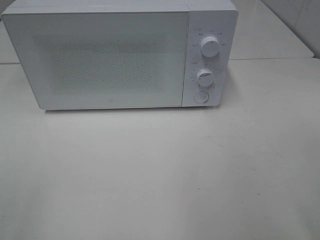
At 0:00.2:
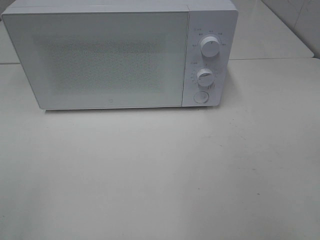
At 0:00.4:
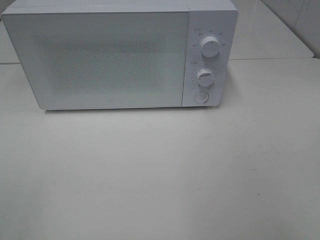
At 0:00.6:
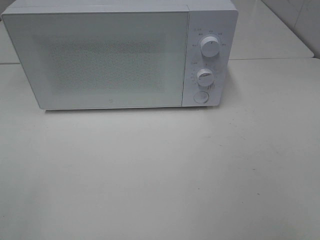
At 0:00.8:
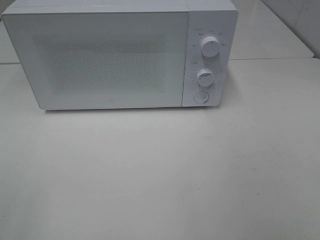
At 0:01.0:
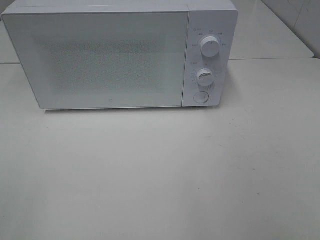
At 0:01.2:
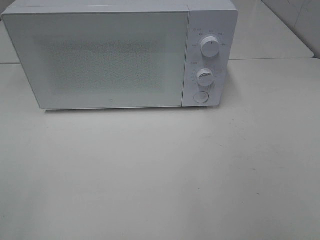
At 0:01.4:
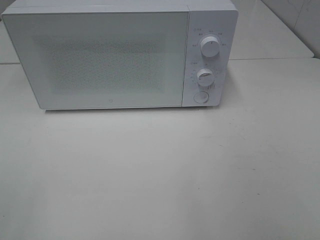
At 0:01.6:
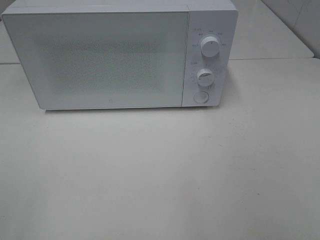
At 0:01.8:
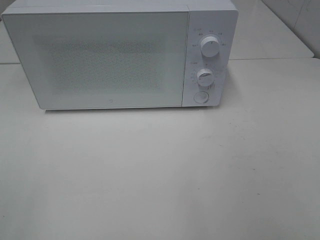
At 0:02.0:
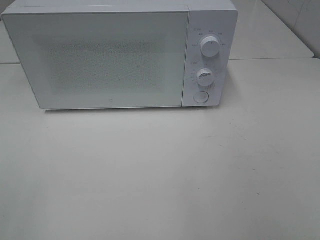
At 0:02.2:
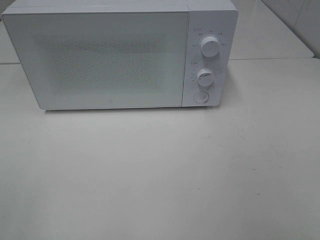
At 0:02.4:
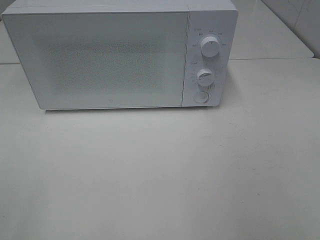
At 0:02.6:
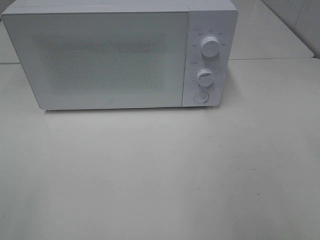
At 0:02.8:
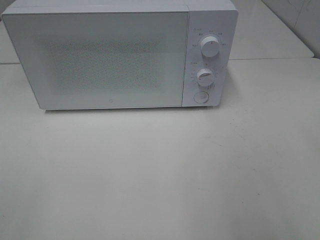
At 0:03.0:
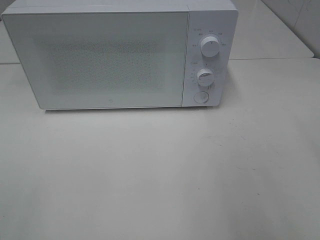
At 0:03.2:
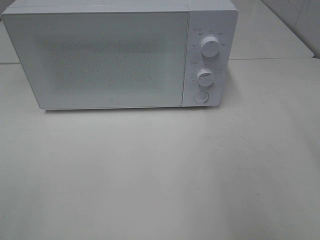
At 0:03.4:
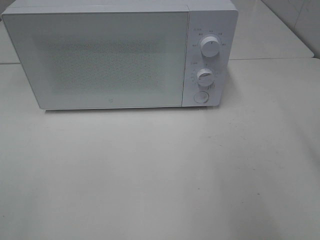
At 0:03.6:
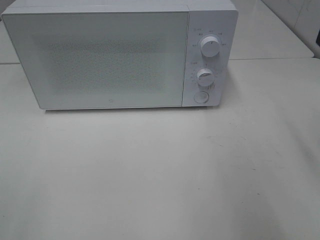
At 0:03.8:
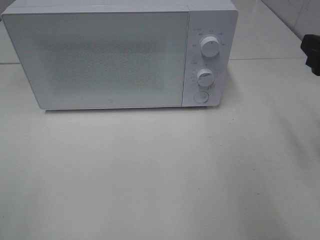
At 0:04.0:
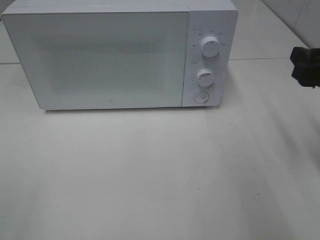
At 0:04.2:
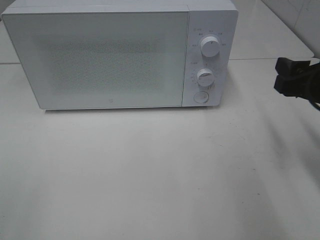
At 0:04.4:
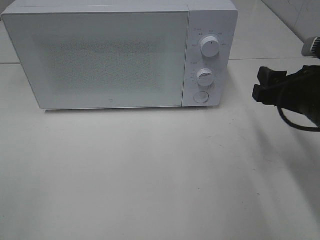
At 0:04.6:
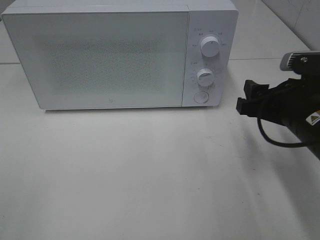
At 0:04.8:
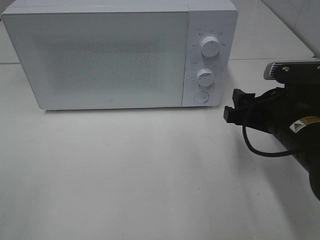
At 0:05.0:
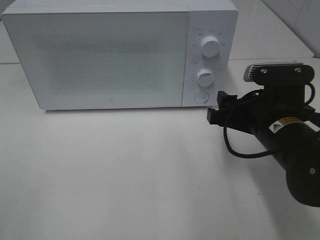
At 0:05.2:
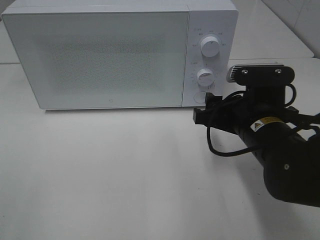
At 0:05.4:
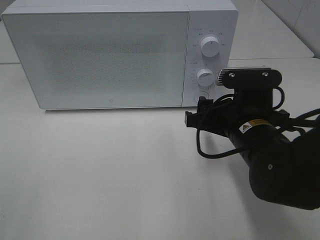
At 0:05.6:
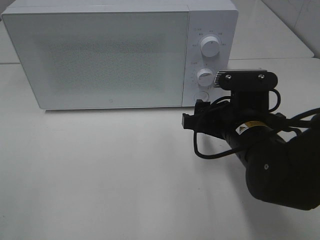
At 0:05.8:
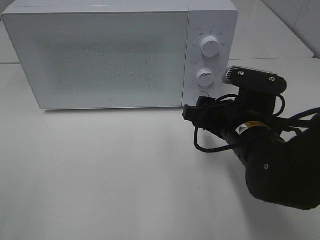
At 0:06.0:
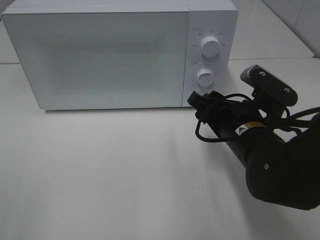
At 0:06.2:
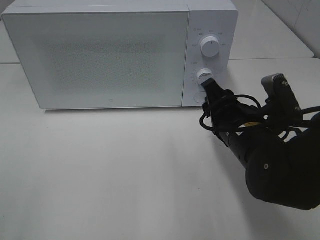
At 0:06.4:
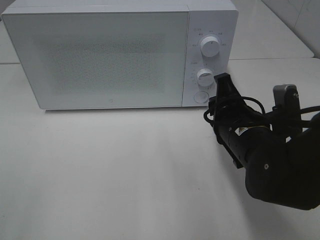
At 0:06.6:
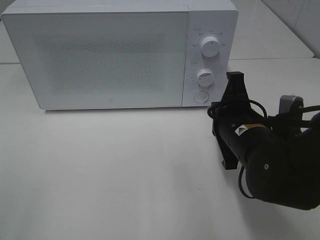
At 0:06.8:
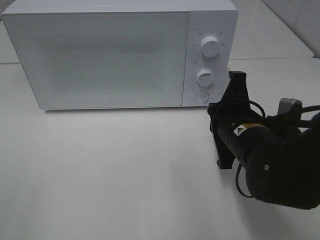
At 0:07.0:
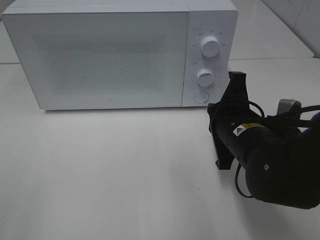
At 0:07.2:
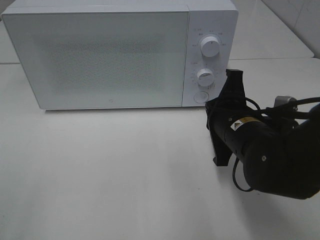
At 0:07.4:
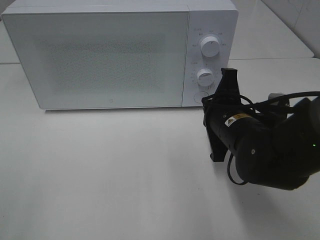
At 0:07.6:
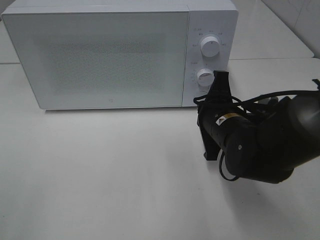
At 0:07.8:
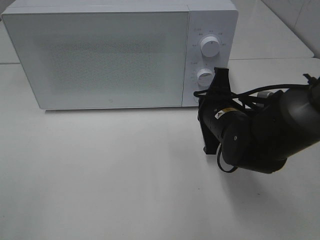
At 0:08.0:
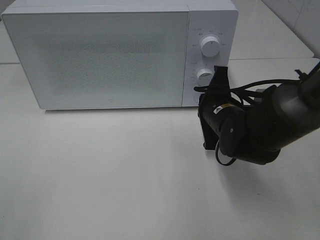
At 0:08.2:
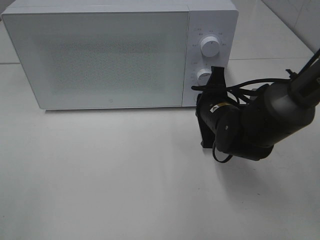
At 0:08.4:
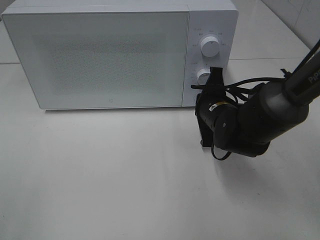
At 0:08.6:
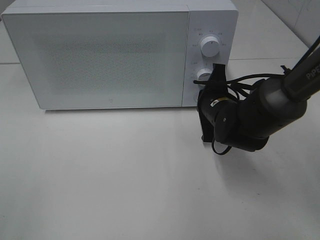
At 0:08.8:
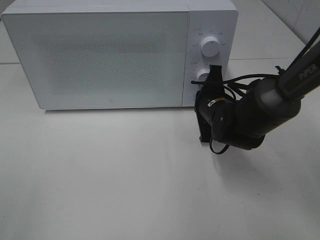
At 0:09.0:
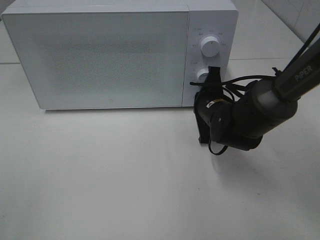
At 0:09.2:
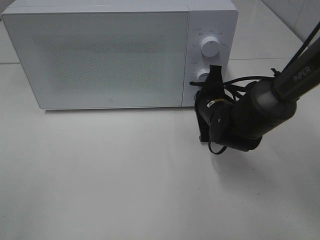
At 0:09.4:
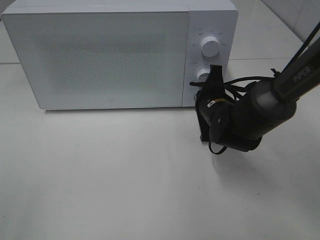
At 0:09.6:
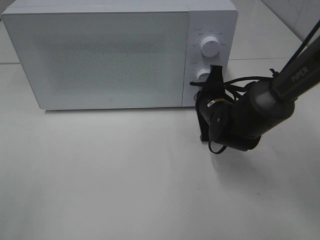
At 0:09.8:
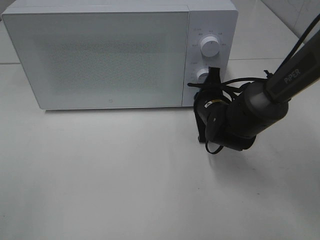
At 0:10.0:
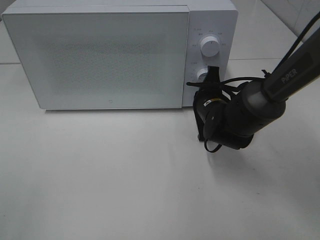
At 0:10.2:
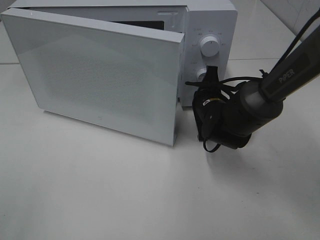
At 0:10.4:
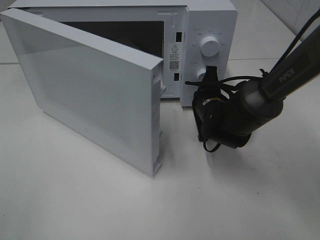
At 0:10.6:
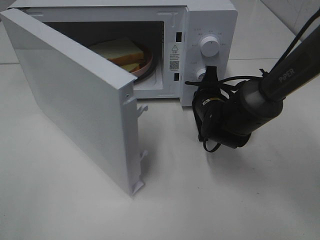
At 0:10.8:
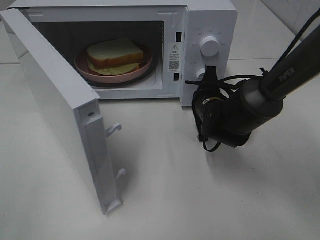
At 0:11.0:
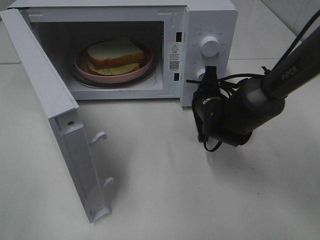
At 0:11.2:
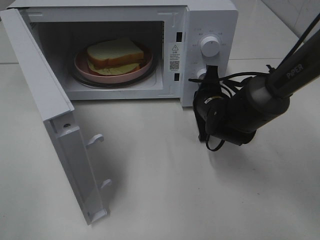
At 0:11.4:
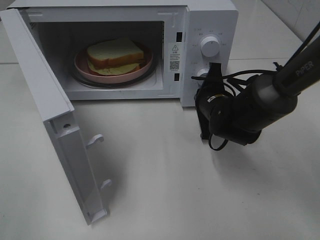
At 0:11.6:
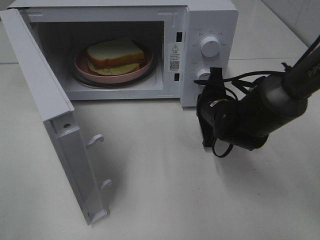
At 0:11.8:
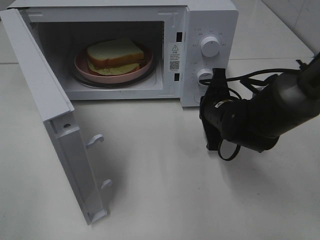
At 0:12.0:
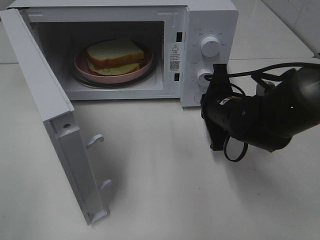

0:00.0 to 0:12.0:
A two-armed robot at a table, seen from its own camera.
Task of the whole recording: Heat Sandwich.
0:03.0 to 0:04.4: The right gripper shifts roughly 15 cm downward and forward.
0:04.4 to 0:06.0: The right gripper travels to the left and downward by roughly 10 cm.
0:06.0 to 0:07.6: The right gripper closes.
0:07.6 to 0:09.0: The right gripper is displaced forward by about 5 cm.
0:10.4 to 0:12.0: The right gripper shifts roughly 5 cm backward.

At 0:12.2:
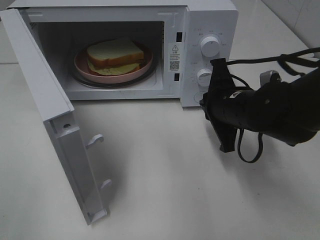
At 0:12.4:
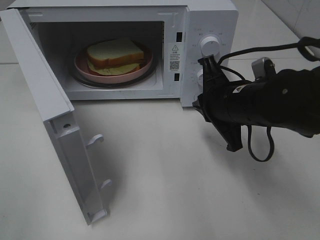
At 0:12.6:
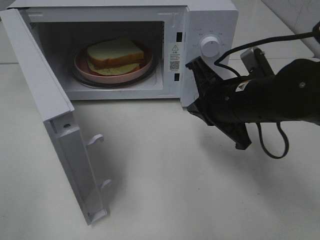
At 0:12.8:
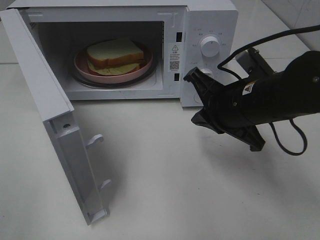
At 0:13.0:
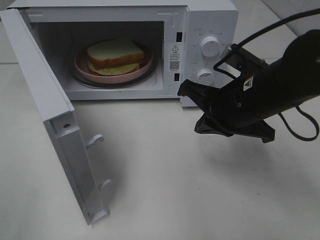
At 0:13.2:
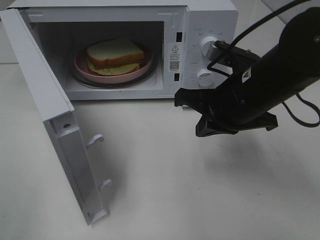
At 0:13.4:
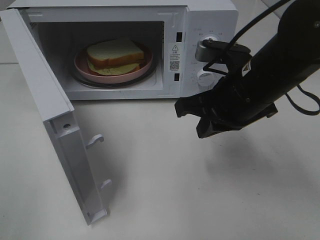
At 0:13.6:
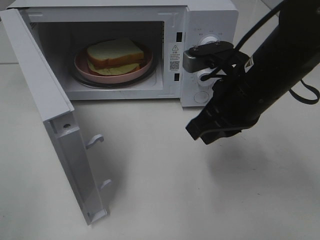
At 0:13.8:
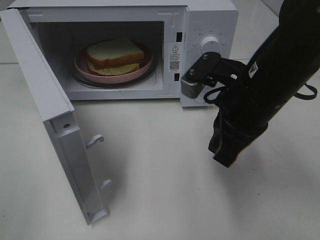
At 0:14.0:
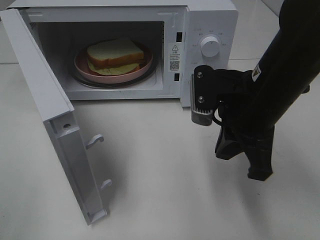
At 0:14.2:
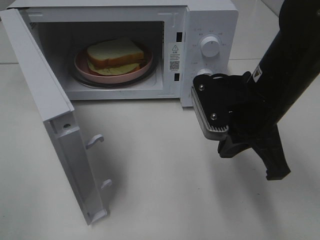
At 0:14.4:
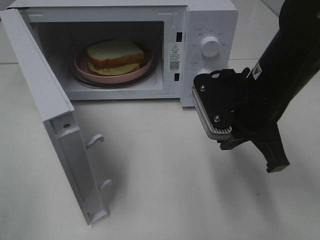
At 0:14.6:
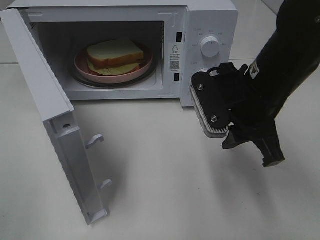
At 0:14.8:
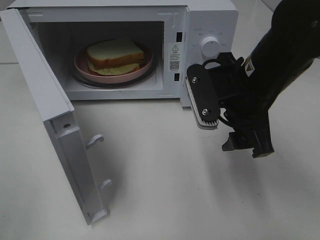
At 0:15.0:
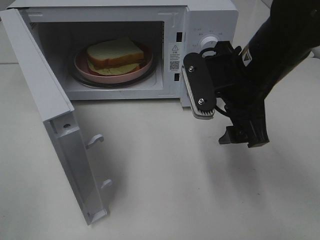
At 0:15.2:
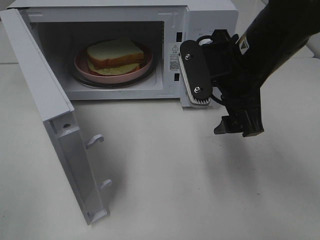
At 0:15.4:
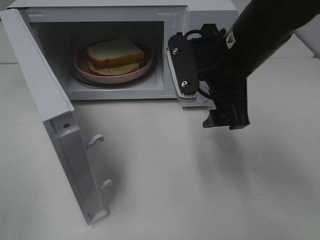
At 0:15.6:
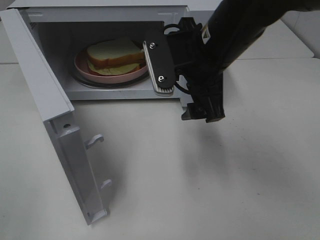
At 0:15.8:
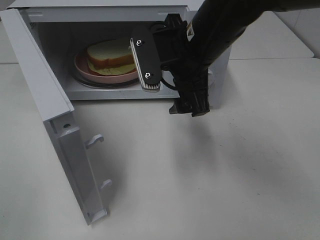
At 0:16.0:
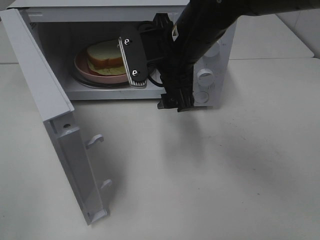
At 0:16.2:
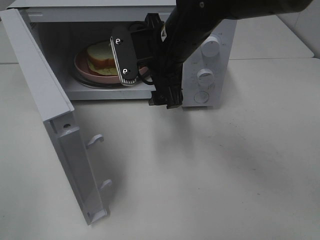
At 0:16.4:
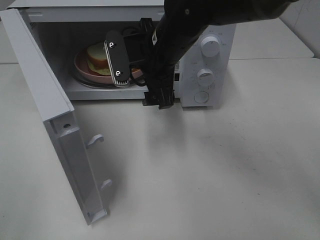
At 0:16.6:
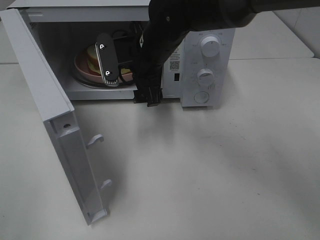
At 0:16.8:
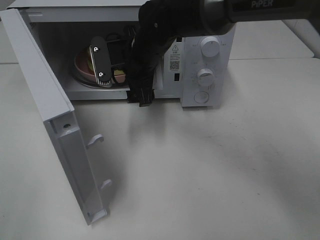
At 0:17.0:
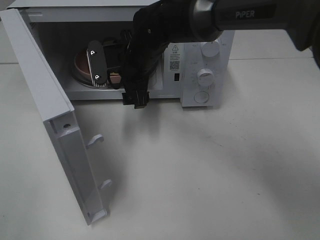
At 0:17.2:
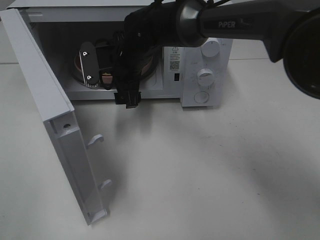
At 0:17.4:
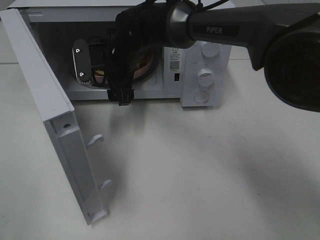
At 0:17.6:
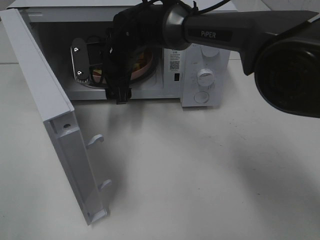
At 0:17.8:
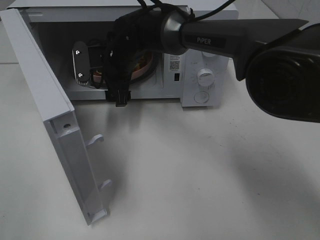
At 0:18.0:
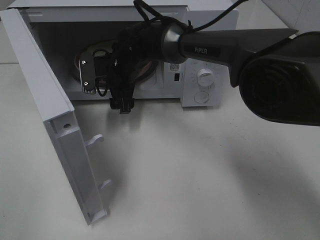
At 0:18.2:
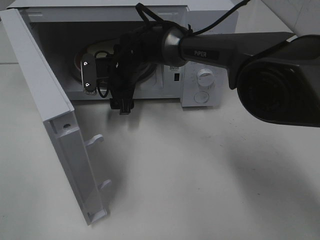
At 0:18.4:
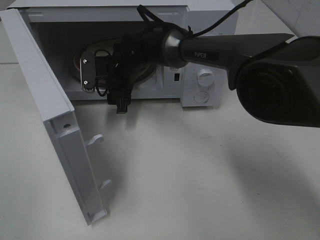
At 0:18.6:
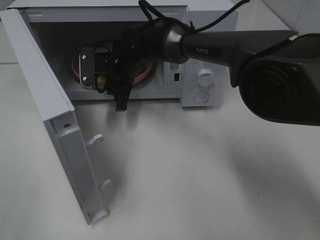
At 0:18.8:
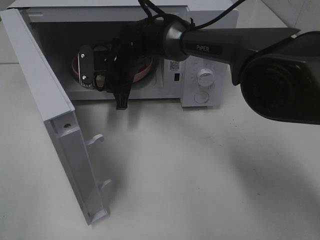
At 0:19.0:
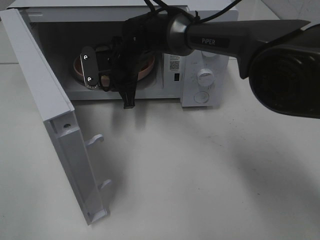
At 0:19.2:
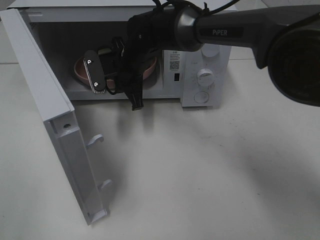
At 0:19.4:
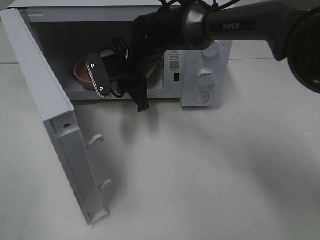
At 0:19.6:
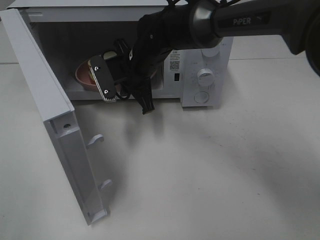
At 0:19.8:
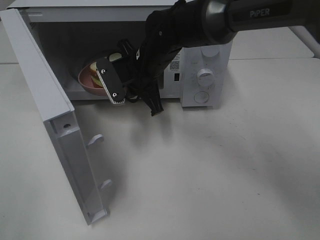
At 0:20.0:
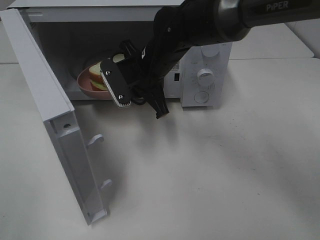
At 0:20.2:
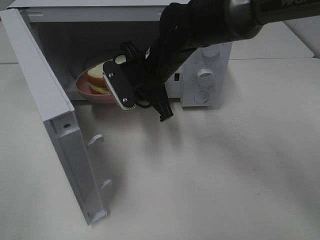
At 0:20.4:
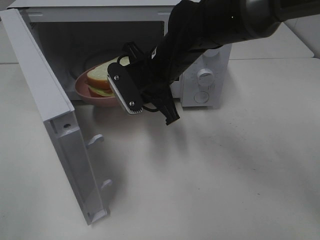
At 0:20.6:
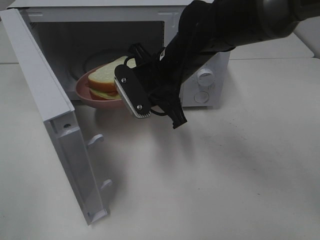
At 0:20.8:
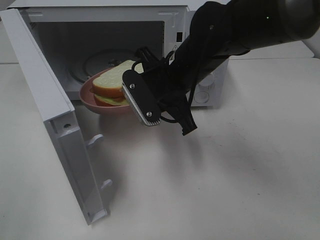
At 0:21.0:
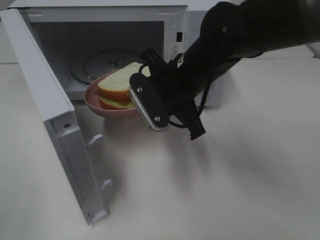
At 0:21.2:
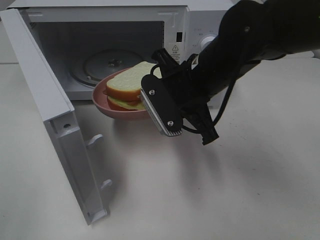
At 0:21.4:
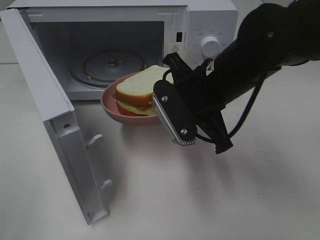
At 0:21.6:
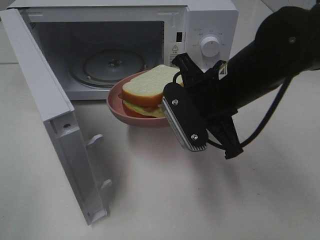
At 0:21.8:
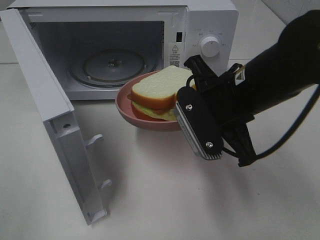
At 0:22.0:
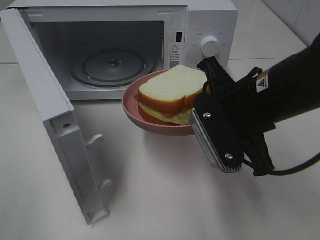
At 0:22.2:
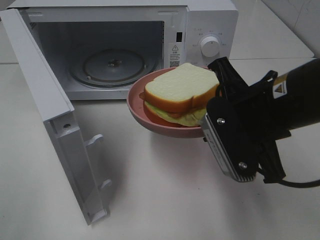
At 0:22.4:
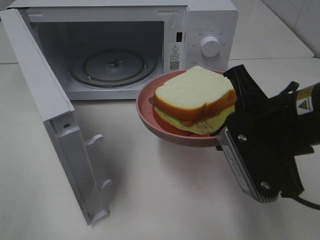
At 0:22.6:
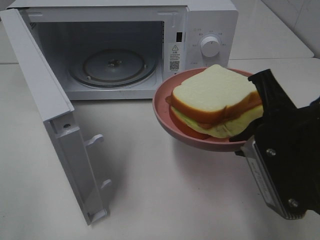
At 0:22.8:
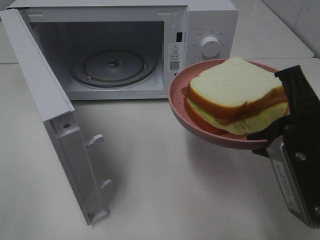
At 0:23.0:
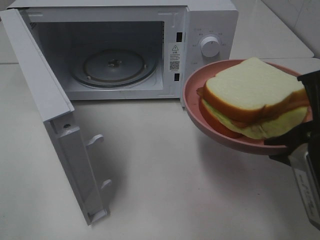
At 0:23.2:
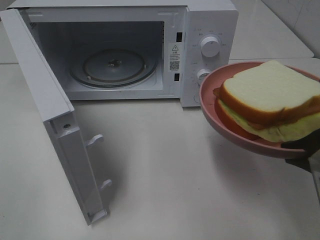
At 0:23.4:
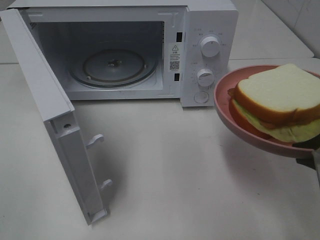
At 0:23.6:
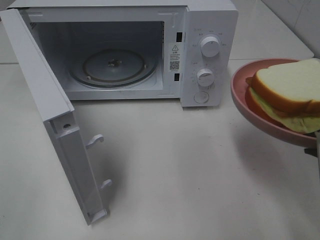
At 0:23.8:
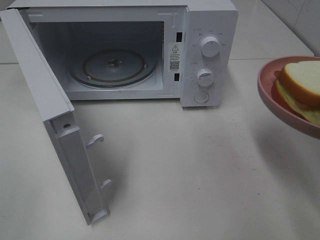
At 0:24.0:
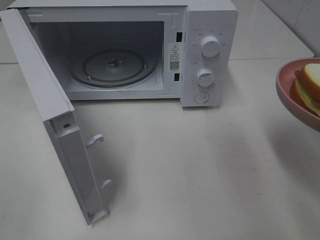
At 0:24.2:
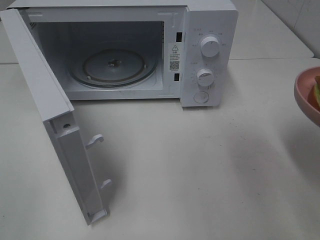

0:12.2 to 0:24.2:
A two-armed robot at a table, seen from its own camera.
Task of the whole recording: Heat Sandwich.
Step, 0:12.6 to 0:18.8: Right hand: grab the plate with the sandwich.
0:12.2 to 0:13.8: The right gripper goes approximately 5 cm upward.
0:13.8 to 0:15.2: The right gripper opens up.
0:15.2 to 0:16.6: The right gripper moves to the left and forward, approximately 15 cm.
0:16.6 to 0:18.2: The right gripper moves downward, forward and to the left, approximately 10 cm.
0:18.2 to 0:19.8: The right gripper moves backward, approximately 5 cm, and closes its fingers.
0:19.8 to 0:21.2: The right gripper travels backward and to the right by some 15 cm.
0:21.2 to 0:22.6: The right gripper travels backward and to the right by about 15 cm.
0:22.6 to 0:24.2: The right gripper heads to the right, covering about 10 cm.
